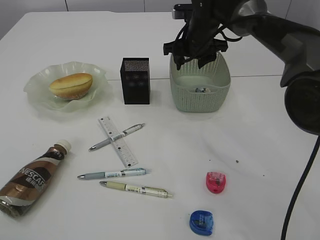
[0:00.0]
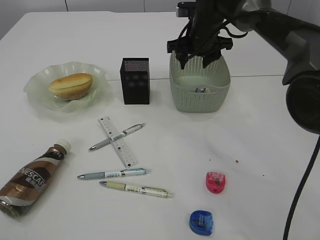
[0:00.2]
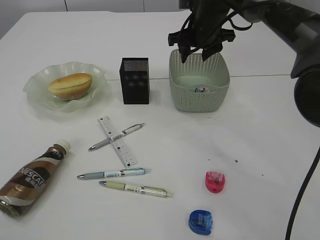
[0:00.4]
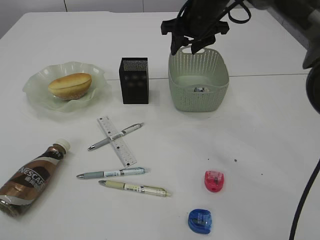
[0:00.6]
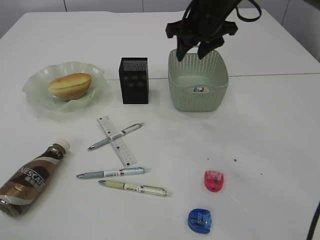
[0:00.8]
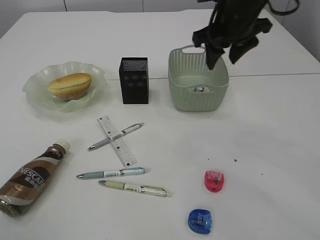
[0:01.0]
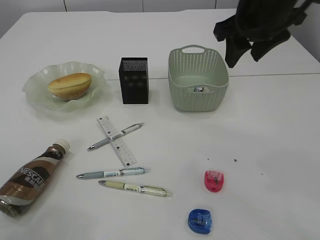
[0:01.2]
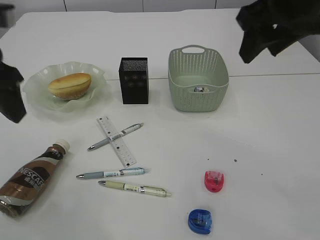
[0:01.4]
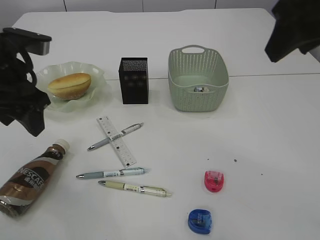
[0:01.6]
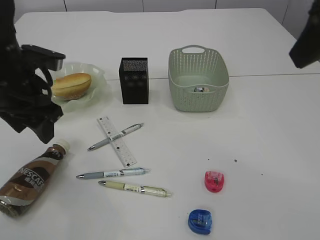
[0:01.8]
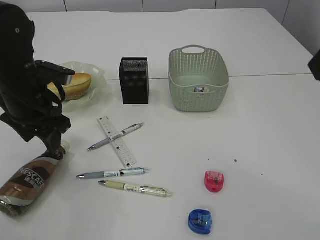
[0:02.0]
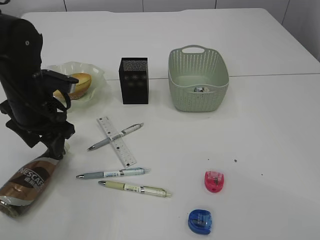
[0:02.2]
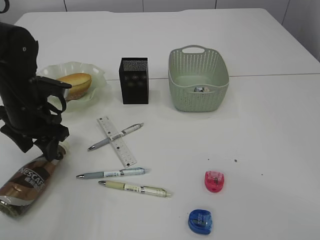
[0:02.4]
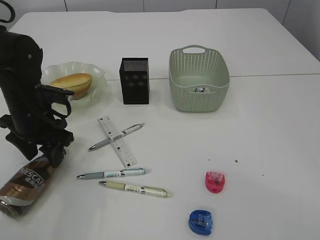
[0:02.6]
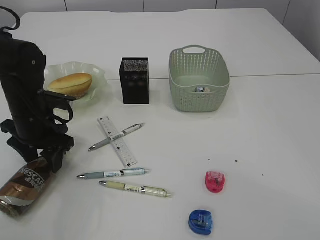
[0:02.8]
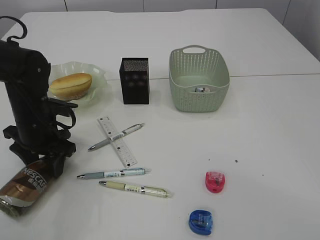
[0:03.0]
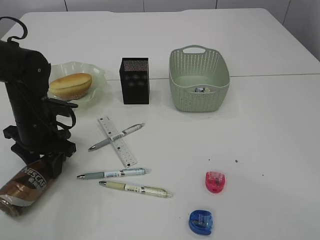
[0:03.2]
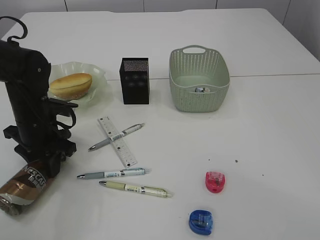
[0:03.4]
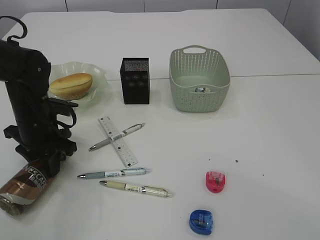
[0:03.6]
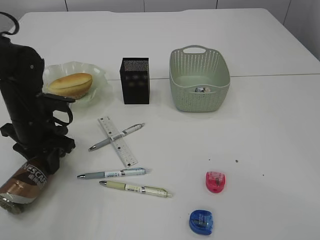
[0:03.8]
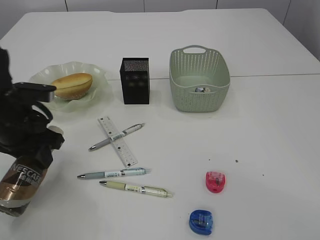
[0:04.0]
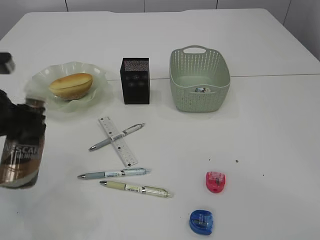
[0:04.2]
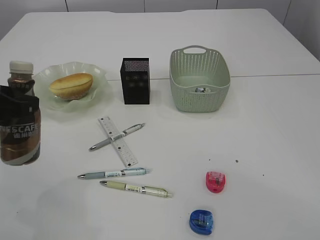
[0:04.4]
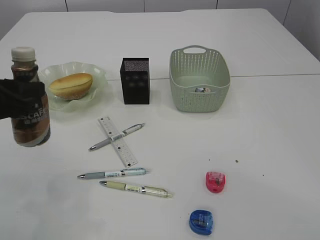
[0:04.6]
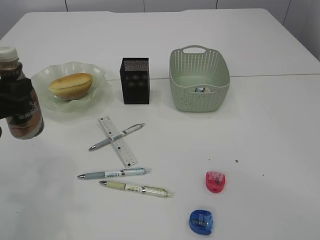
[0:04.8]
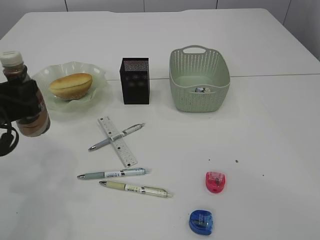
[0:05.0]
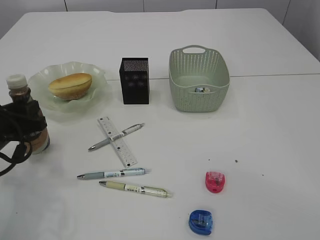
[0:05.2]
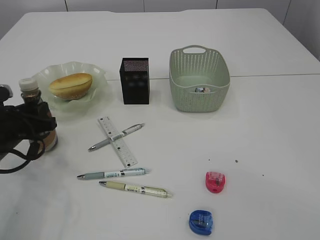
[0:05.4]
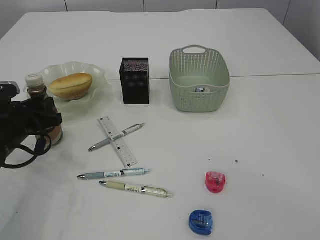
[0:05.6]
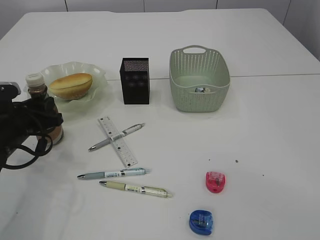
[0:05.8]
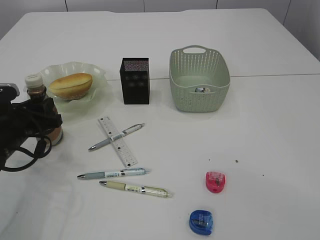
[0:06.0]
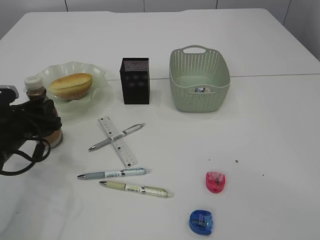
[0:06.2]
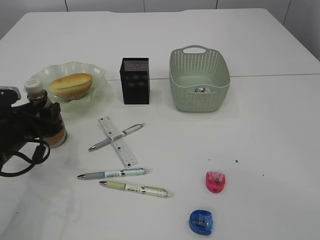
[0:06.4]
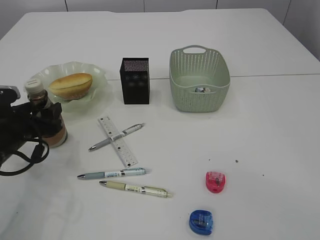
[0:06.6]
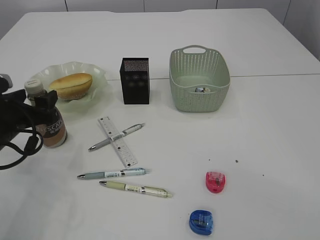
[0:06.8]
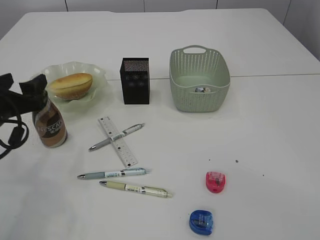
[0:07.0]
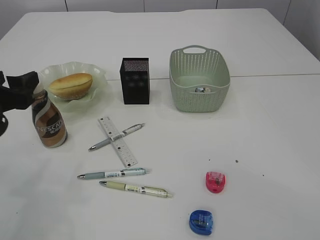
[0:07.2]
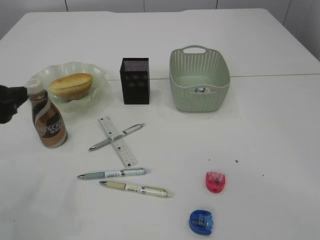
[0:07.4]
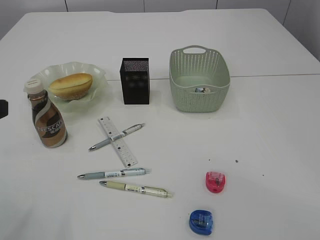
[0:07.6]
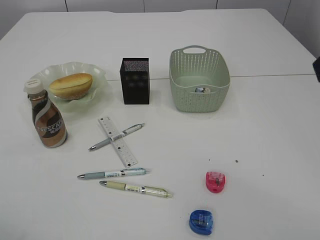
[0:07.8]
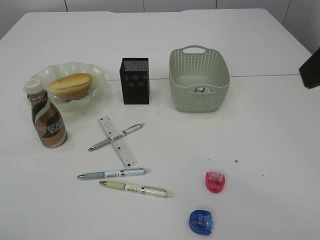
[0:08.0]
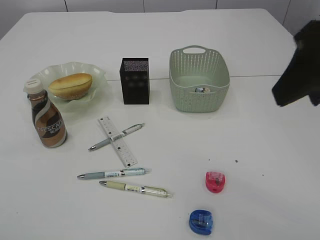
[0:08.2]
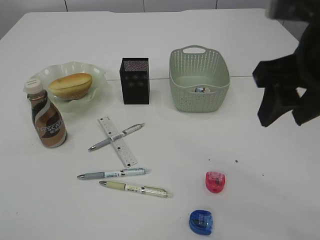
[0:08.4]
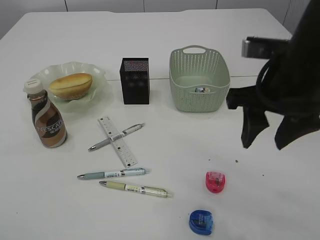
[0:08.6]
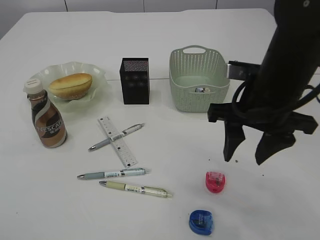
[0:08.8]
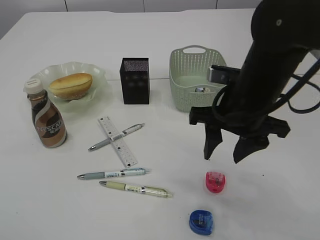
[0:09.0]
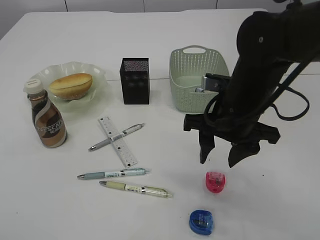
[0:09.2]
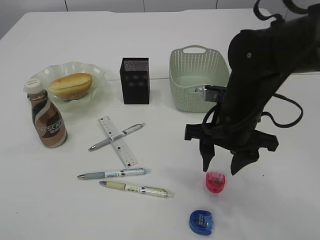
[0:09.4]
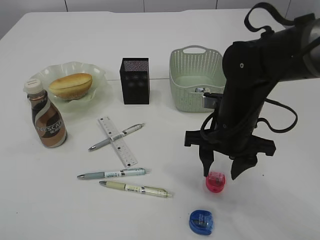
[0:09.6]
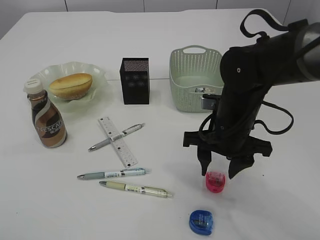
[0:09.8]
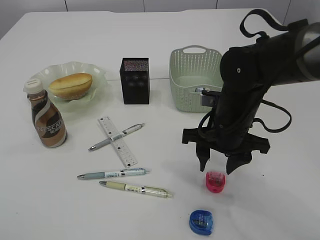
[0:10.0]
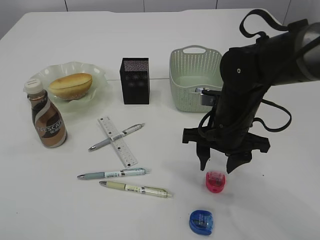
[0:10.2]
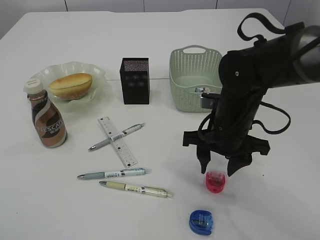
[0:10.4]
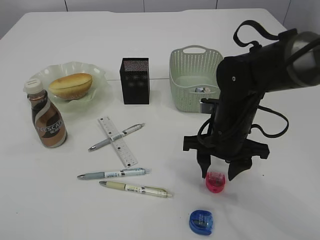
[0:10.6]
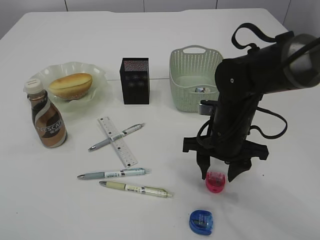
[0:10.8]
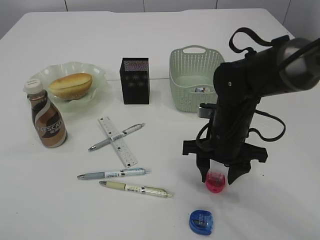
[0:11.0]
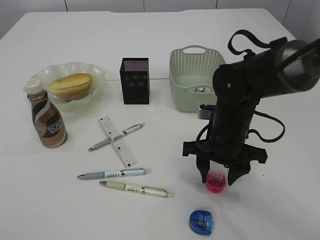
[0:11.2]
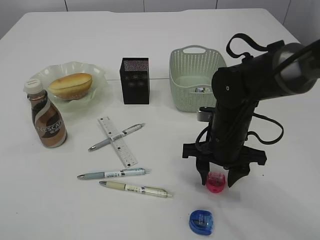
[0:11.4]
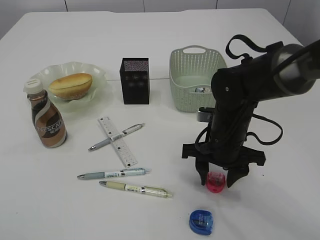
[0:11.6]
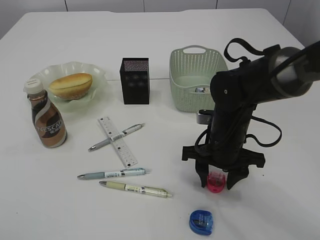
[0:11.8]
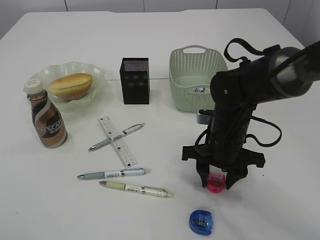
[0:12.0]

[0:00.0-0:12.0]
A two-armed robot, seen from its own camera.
Step, 0:00.2 to 0:04.0: Pick up the bottle with the left arm.
Step, 0:04.2 to 0:07.0: Place the bottle.
0:00.0 to 0:01.6: The right gripper heads backward and upward, covering roughly 30 cm, while the left gripper goes about 25 cm downward, forward and to the right.
0:01.6 to 0:03.0: The right gripper moves backward, approximately 10 cm. Meanwhile the left gripper is displaced downward by some 15 cm.
0:03.0 to 0:04.4: The left gripper heads upward and backward, covering some 15 cm, and closes up.
0:04.4 to 0:06.0: The left gripper travels downward and forward by approximately 15 cm.
0:06.0 to 0:07.6: The left gripper goes about 20 cm upward and backward, and opens.
0:07.6 to 0:09.0: The left gripper travels backward by about 5 cm, while the right gripper heads downward, forward and to the left, covering roughly 25 cm.
0:09.0 to 0:10.4: The right gripper travels downward by approximately 5 cm.
0:10.4 to 0:12.0: The grippers make only small movements.

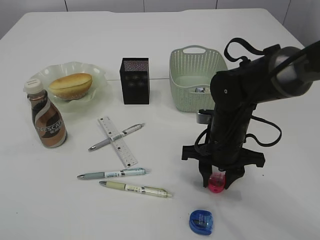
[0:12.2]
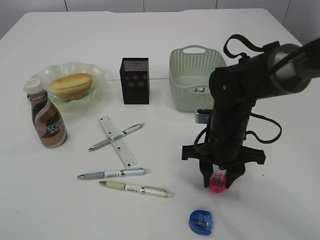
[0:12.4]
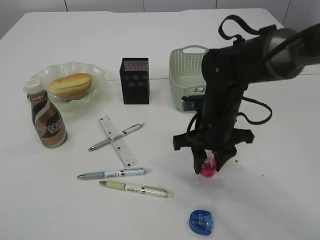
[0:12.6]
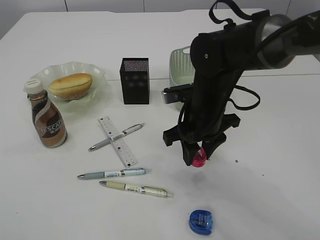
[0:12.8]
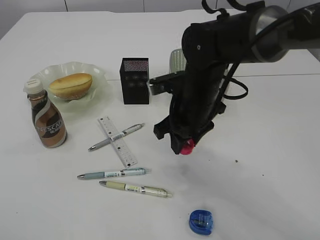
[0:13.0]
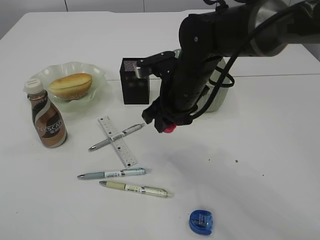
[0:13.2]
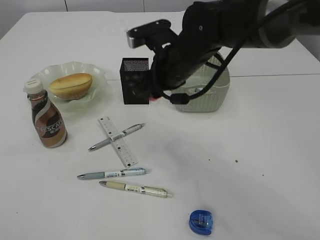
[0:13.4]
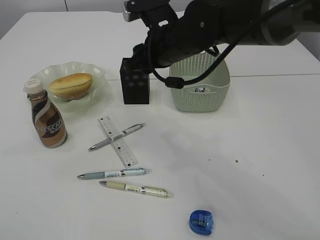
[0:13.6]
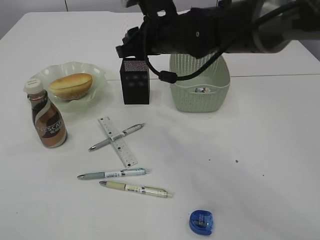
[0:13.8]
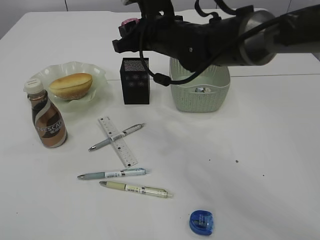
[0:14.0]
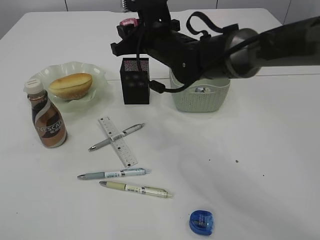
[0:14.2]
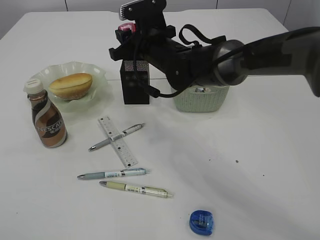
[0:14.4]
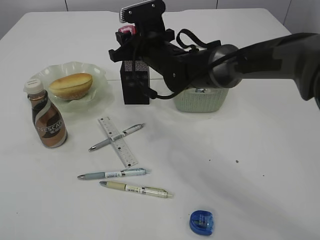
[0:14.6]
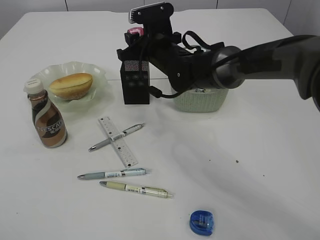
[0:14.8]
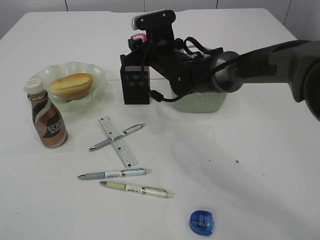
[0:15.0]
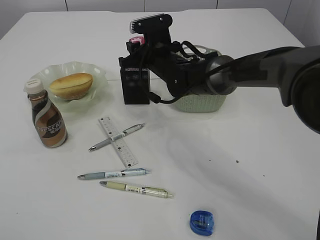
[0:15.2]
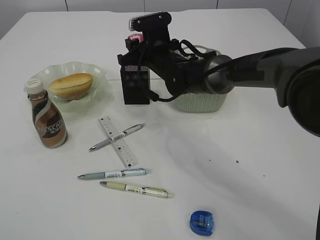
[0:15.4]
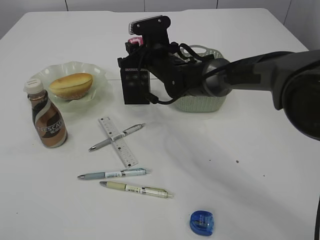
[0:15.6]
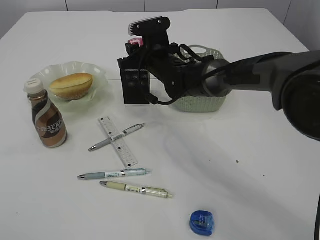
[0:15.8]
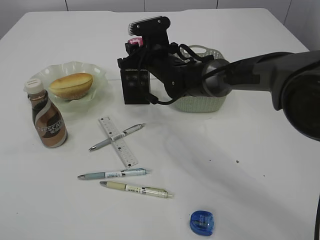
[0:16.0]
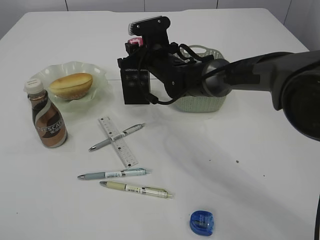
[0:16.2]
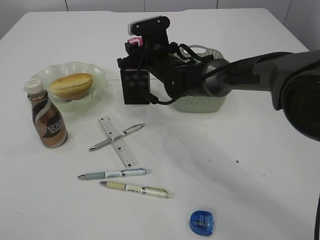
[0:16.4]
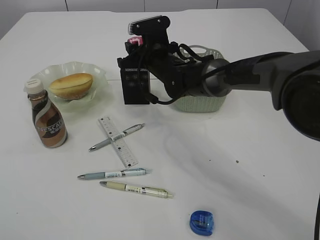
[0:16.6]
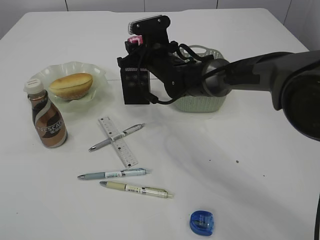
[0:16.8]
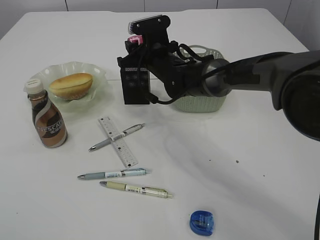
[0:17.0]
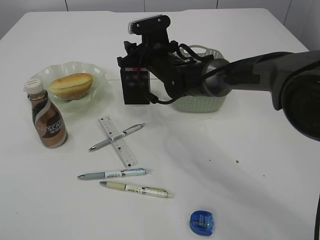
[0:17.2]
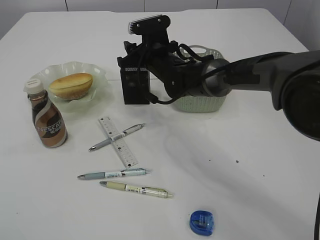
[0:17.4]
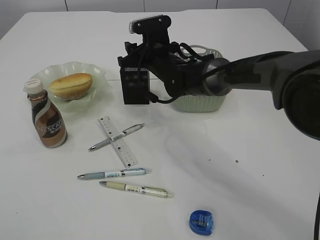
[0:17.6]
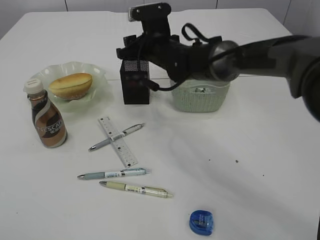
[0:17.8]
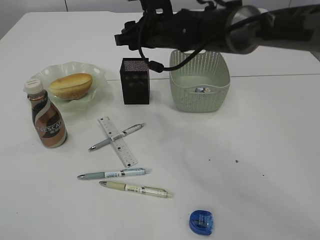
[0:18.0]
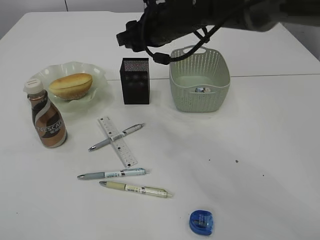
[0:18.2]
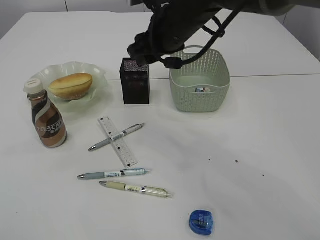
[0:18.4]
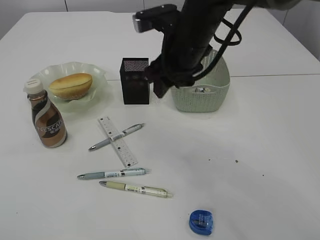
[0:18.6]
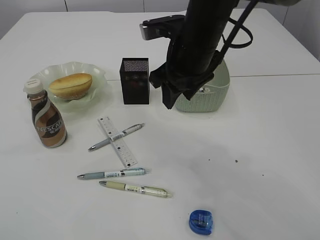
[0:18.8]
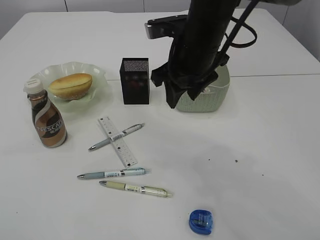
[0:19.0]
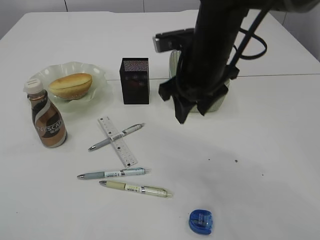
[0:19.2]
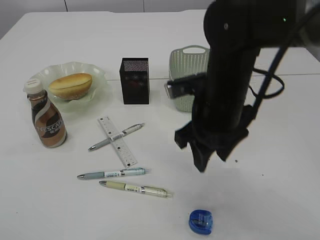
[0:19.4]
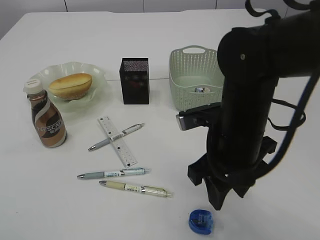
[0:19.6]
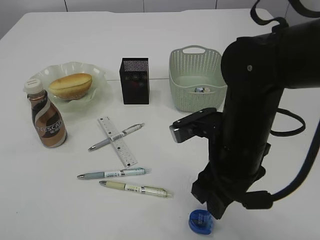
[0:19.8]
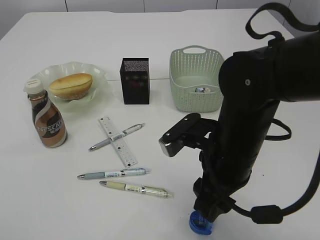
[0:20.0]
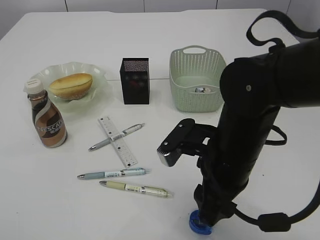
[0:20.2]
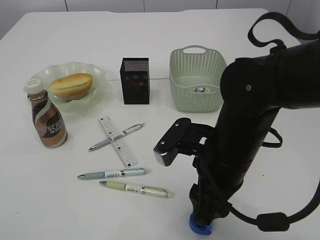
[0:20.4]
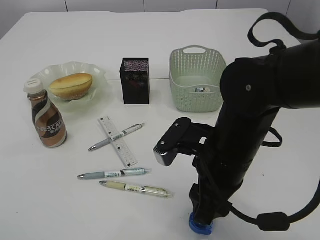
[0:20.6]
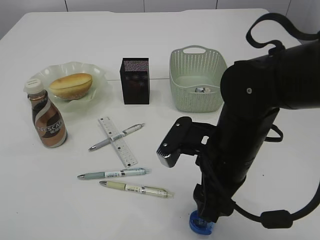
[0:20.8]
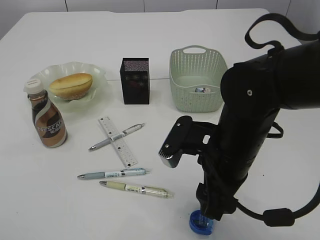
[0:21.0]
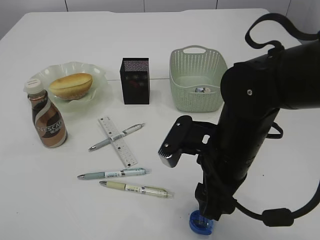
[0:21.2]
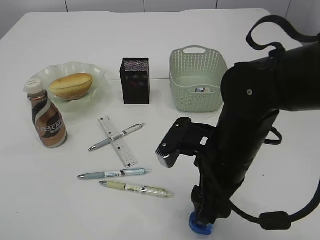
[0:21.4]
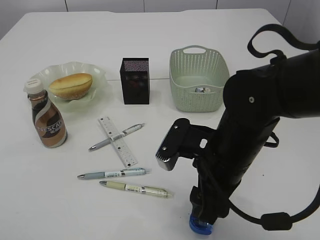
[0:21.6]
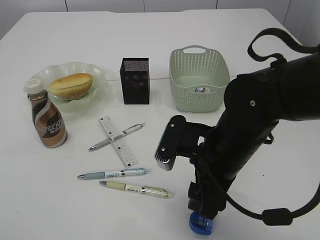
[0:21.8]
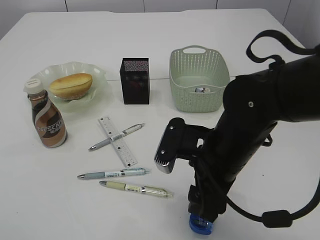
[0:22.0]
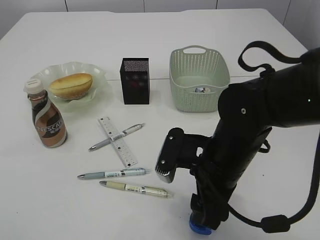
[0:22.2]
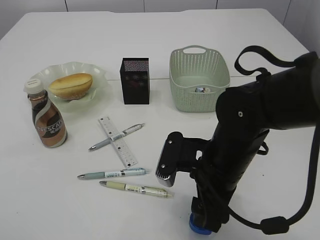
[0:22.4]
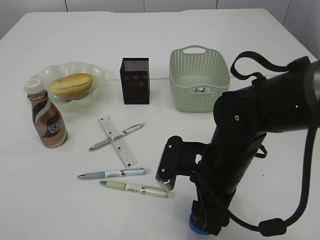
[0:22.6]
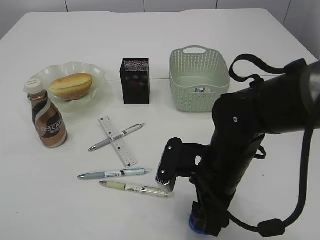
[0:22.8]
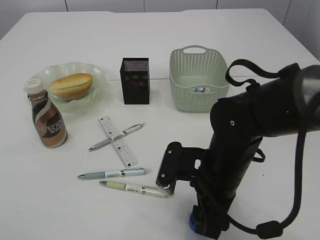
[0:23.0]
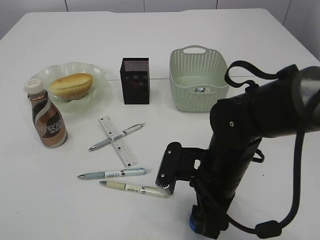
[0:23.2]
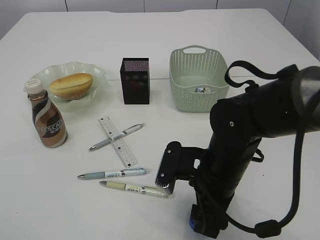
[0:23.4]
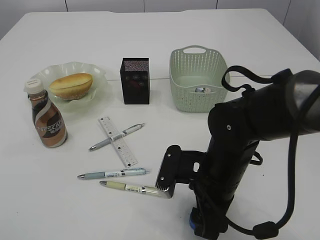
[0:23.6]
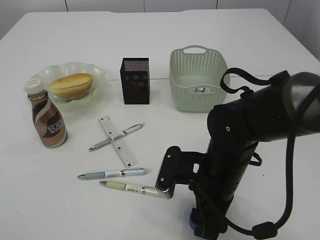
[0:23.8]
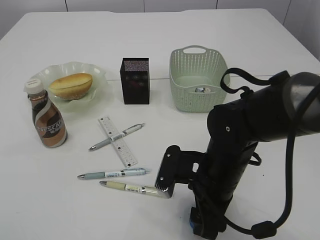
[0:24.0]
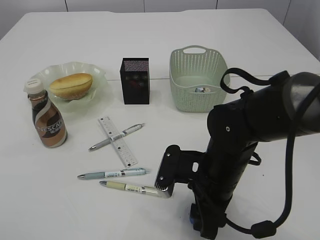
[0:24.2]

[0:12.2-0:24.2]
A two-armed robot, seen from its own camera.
Step, 0:12.8 to 0:17.8: Place the red pencil sharpener into the pen holder.
0:12.2 to 0:13.8: The right gripper moves upward, forward and to the left, roughly 20 cm.
0:13.8 to 0:15.2: The right gripper moves downward and forward, about 10 cm.
0:15.2 to 0:16.6: Both grippers stay put.
0:16.6 to 0:18.2: The right gripper heads upward, covering roughly 10 cm.
0:18.2 to 0:19.8: The right gripper travels backward by about 20 cm.
0:21.2 to 0:22.6: There are only small adjustments of the grippers.
0:22.6 to 0:24.2: There are only small adjustments of the grippers.
